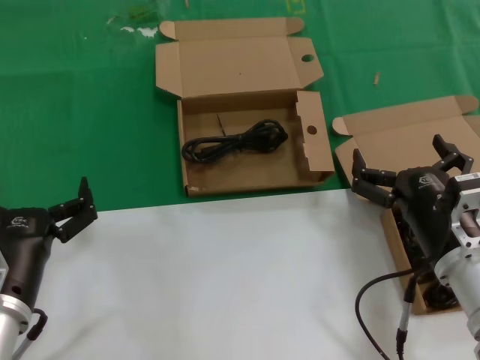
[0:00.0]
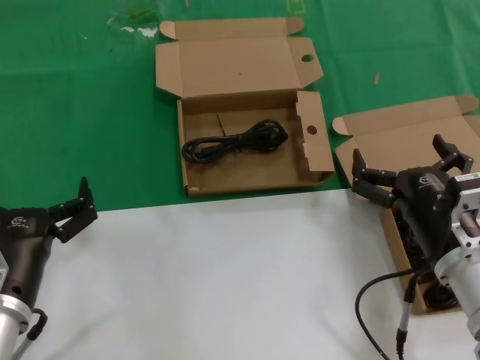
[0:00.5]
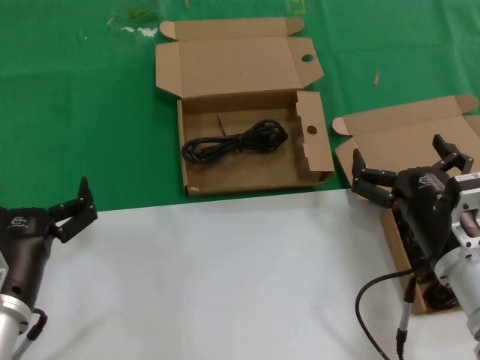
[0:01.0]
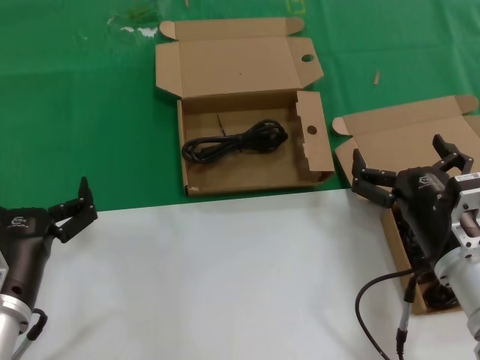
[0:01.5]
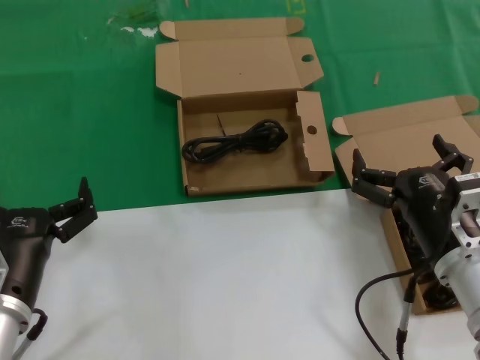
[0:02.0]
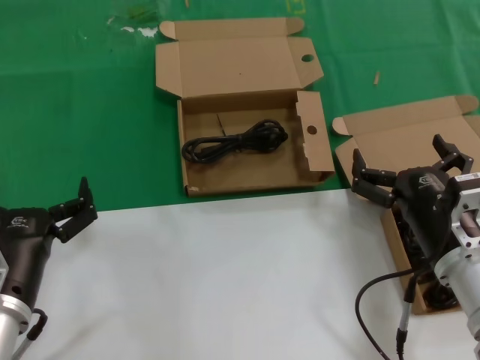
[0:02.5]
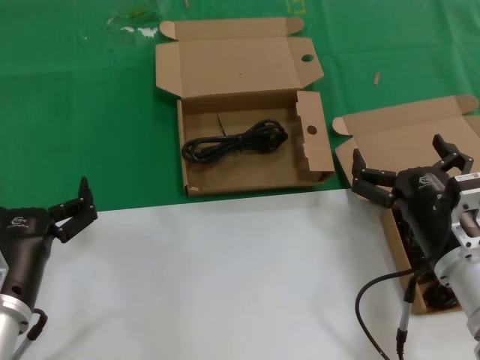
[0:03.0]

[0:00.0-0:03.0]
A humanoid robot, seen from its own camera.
Task of the whole recording: take the parts from the box containing them and put them into an empty box.
0:00.0 to 0:03.0: Both hands stay put.

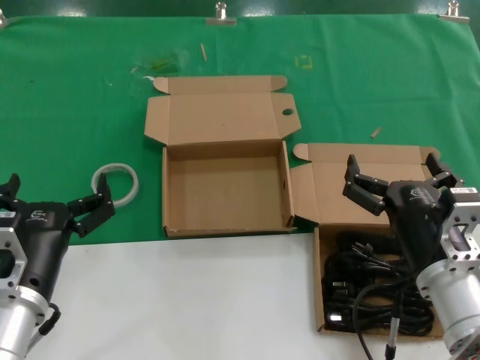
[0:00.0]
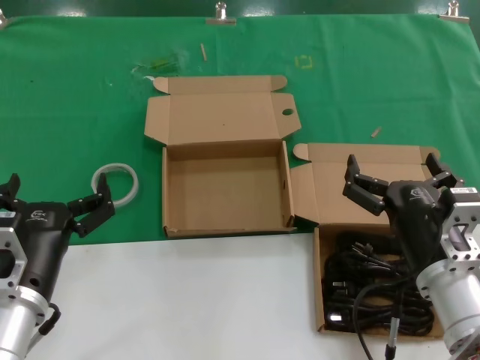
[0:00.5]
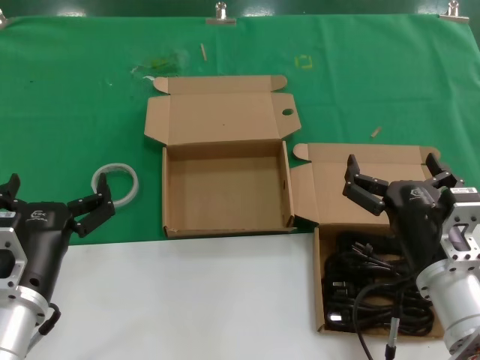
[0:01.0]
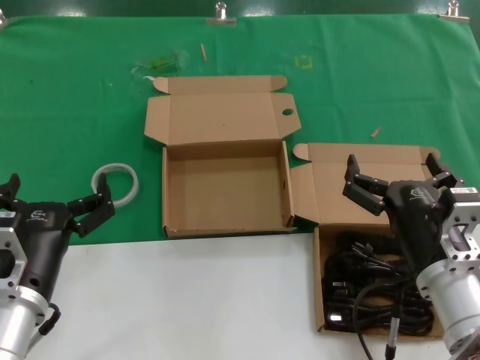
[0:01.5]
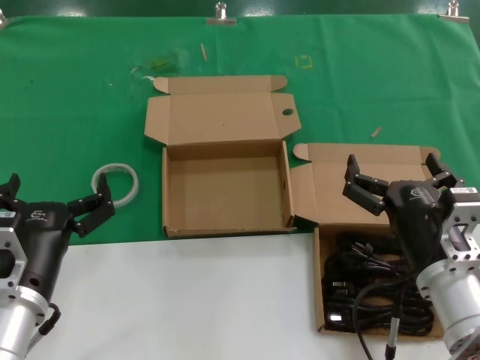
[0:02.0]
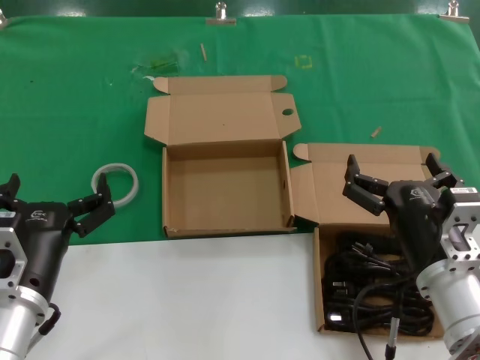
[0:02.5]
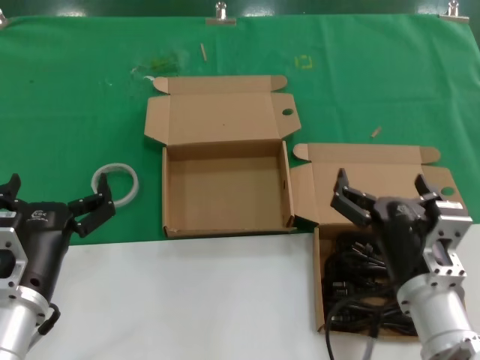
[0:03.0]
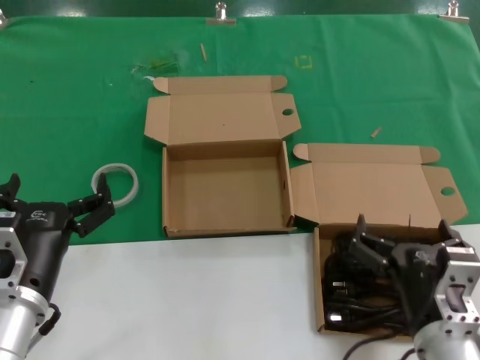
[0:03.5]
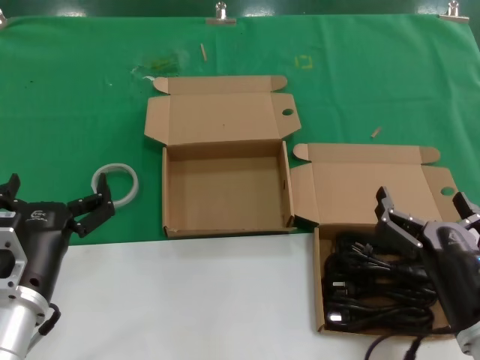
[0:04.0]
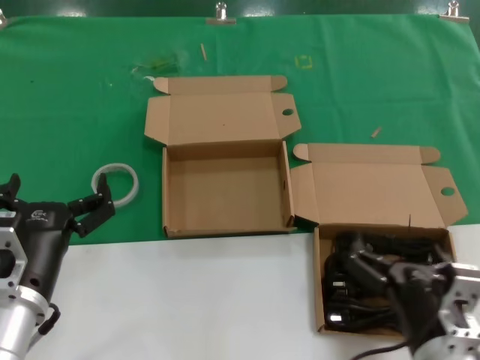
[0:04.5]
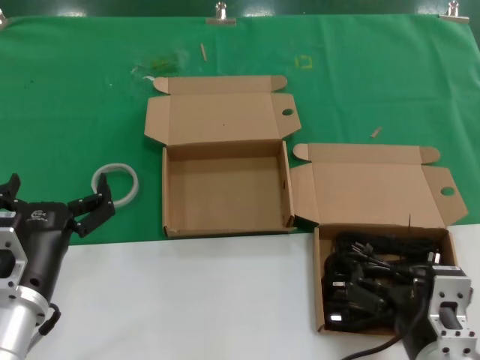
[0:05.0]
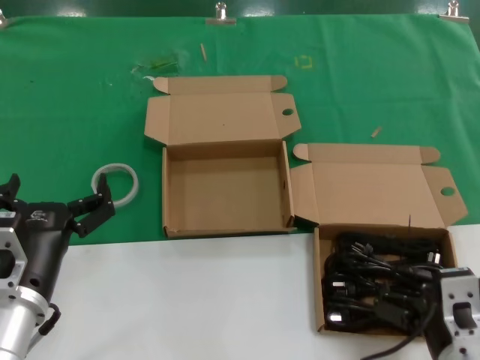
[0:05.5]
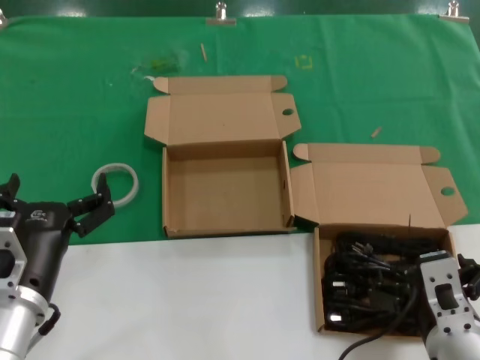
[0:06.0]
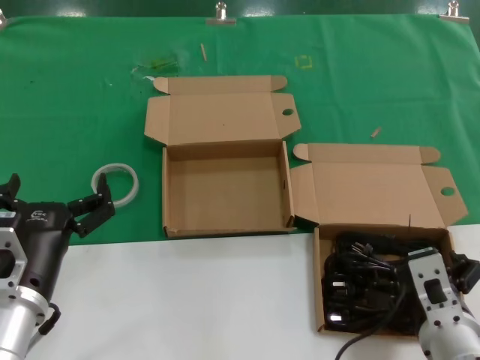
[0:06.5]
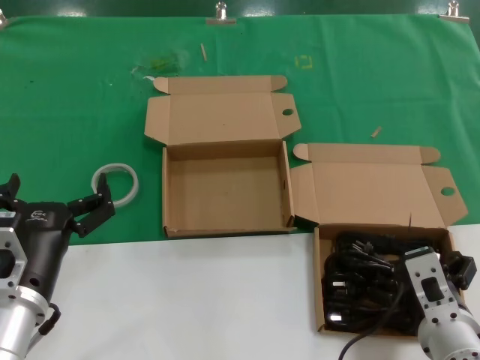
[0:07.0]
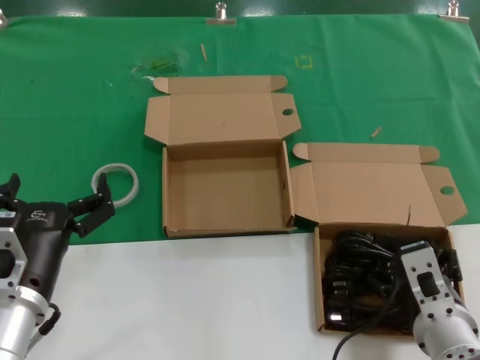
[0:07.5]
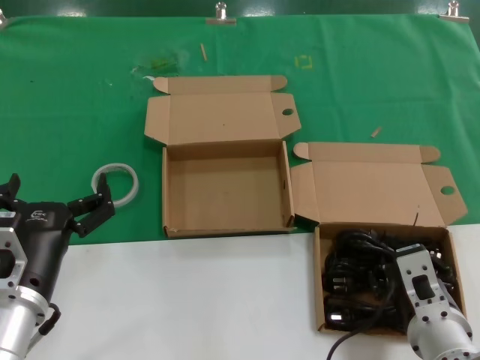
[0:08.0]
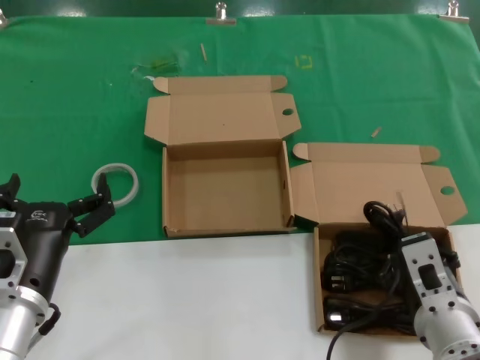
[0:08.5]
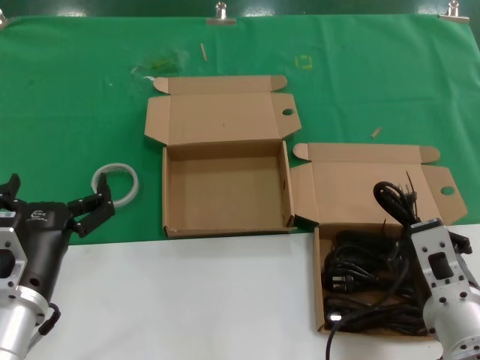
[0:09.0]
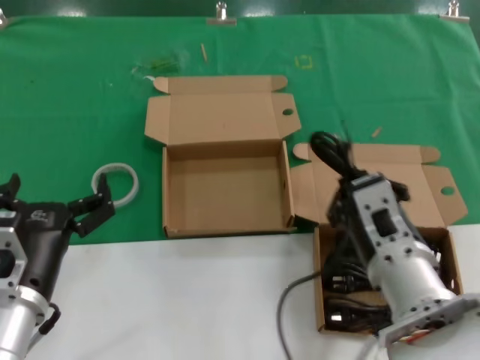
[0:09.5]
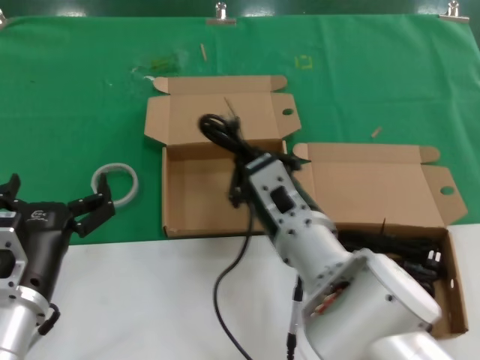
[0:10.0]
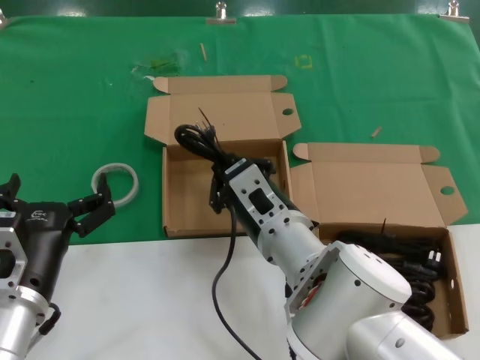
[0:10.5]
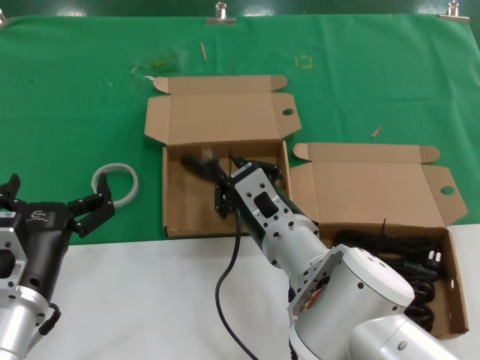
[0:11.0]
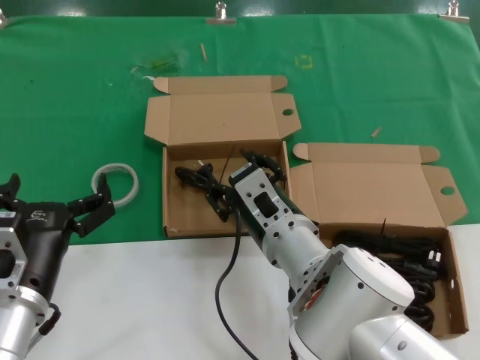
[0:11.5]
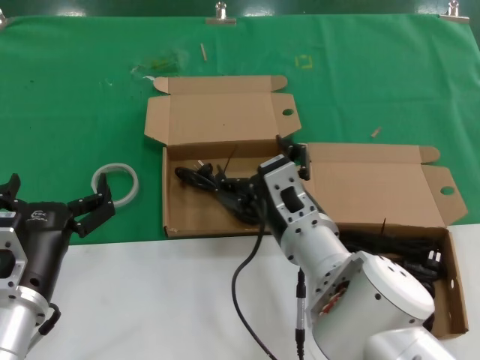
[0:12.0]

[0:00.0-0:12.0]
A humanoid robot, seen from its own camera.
Task of the whole recording: take the parts from the box containing them and put them into an empty box.
Step, 0:00.0 to 0:07.5: Grasp the data cable.
Step, 0:08.0 to 0:11.0: Place the data cable in the another box.
0:00.0 to 0:02.0: Both hands stay put.
0:02.0 to 0:04.0: The right hand moves backward, approximately 5 cm.
0:06.0 to 0:08.0: The hands make only small movements.
0:08.0 to 0:10.0: The right hand moves to the left, upward and forward, some 15 cm.
0:10.0 to 0:12.0: The hands make only small movements.

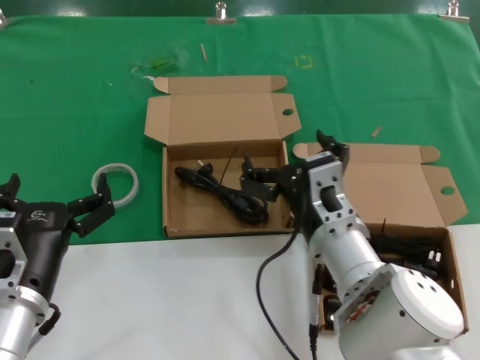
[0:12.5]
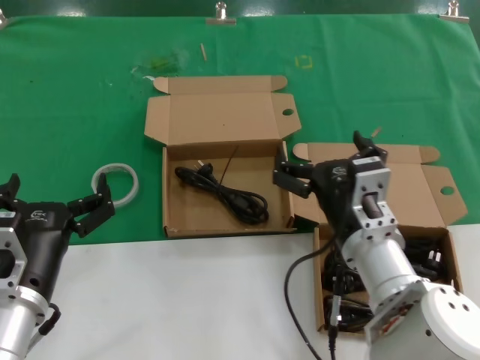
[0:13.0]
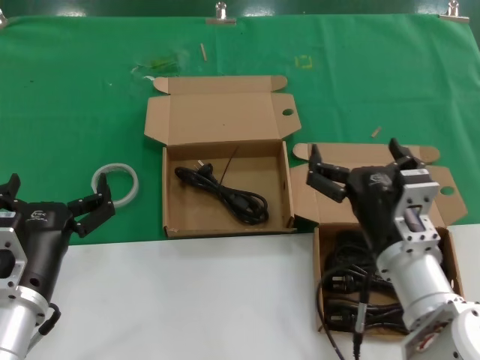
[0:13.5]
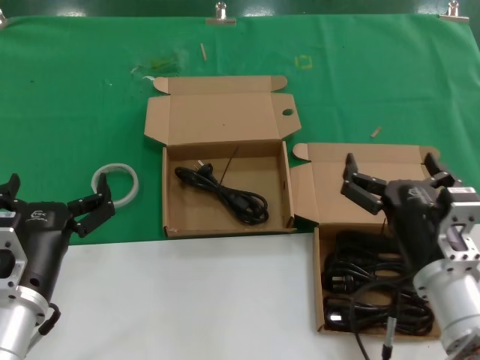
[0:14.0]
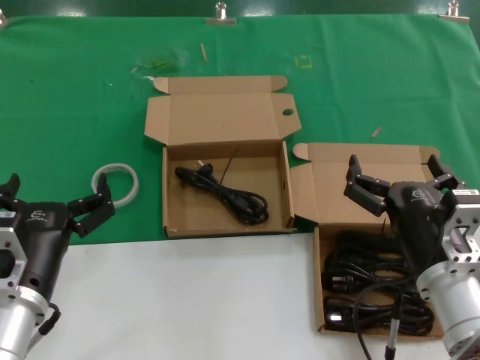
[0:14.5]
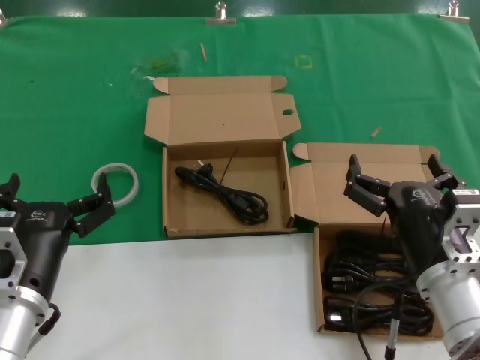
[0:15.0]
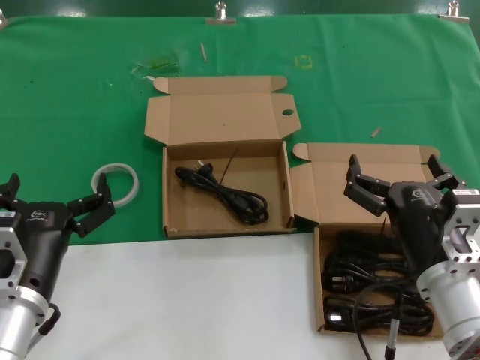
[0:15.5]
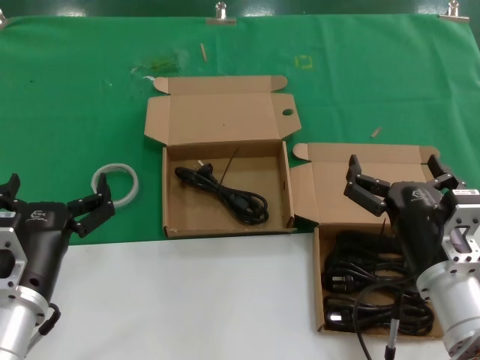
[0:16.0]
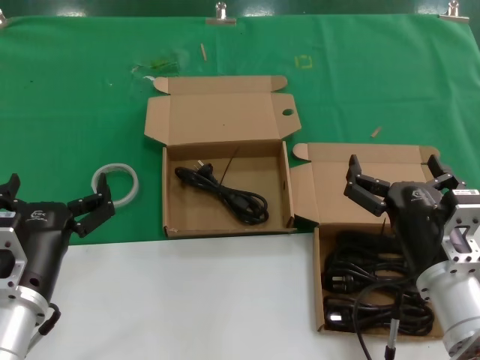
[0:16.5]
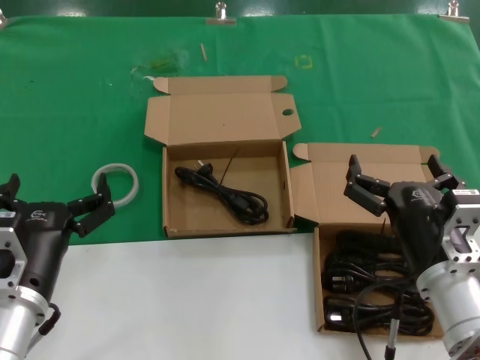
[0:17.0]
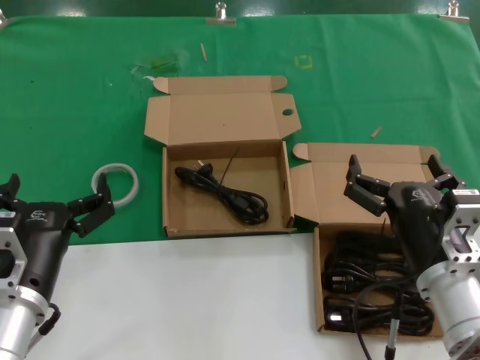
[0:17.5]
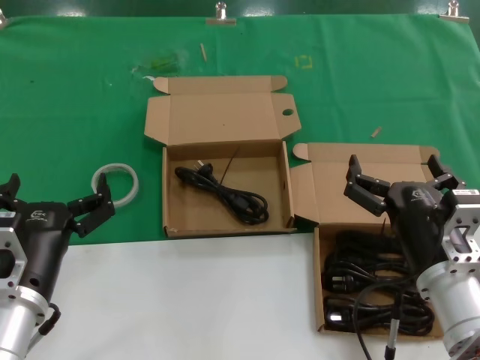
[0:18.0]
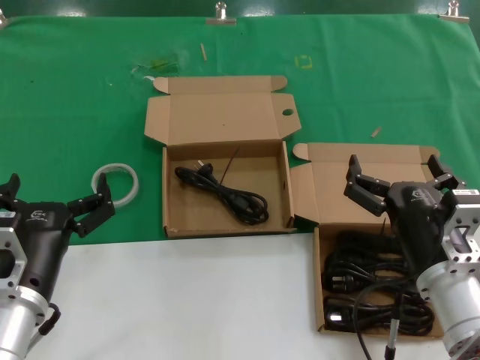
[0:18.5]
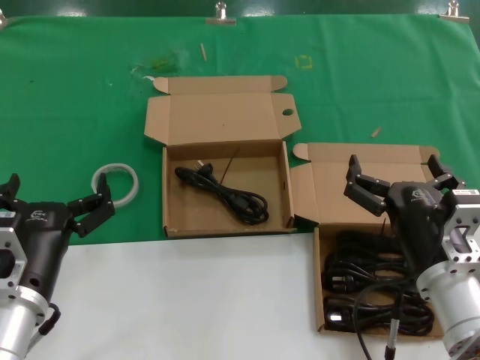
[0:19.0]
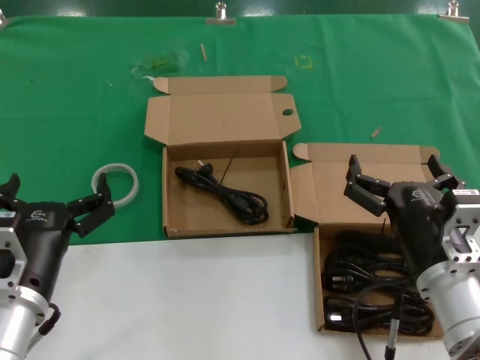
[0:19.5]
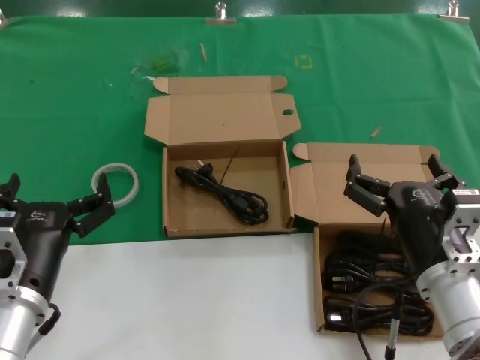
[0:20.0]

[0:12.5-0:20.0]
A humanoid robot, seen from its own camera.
Task of the whole recording: take the parts from the box containing them and put them into an empty box.
0:12.5 to 0:14.5: The right hand heads to the right and backward, covering approximately 15 cm.
0:14.5 to 0:20.0: Neither hand changes place.
